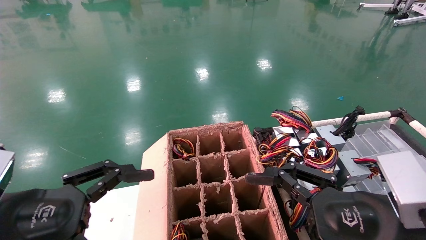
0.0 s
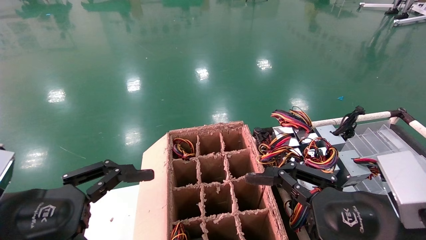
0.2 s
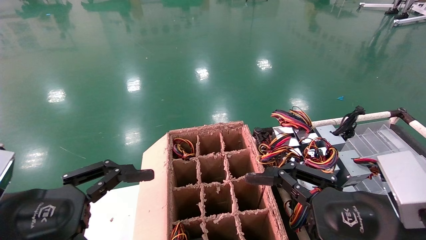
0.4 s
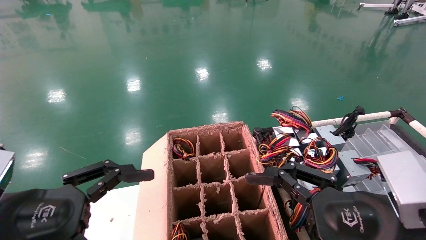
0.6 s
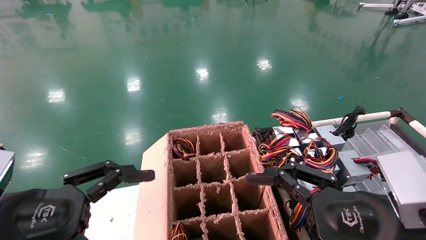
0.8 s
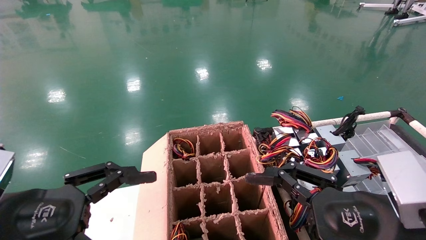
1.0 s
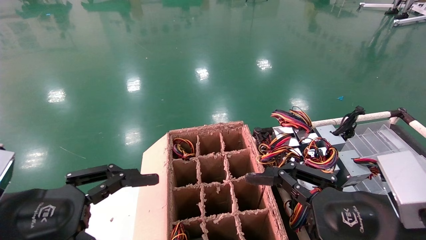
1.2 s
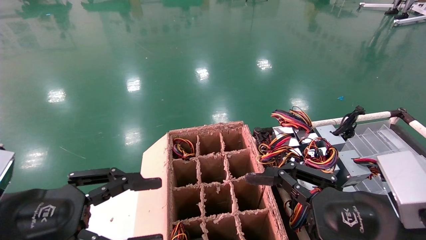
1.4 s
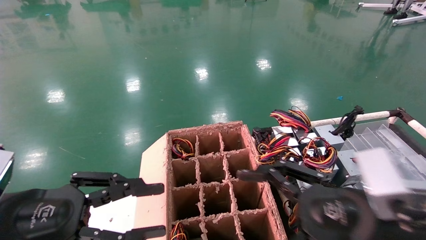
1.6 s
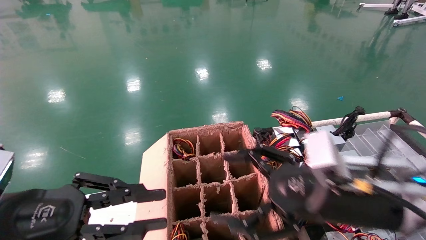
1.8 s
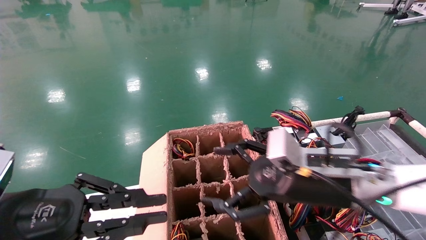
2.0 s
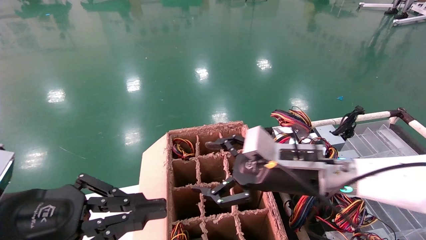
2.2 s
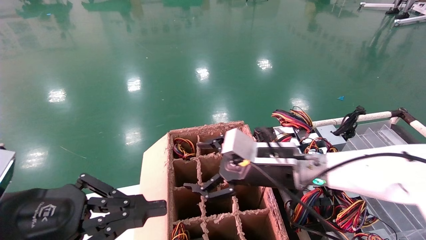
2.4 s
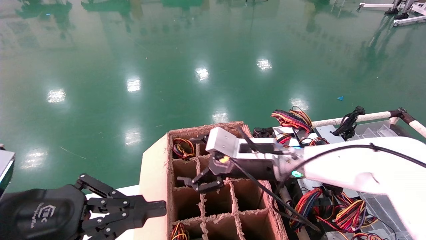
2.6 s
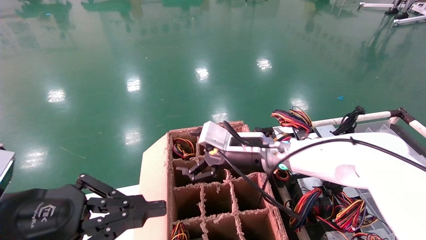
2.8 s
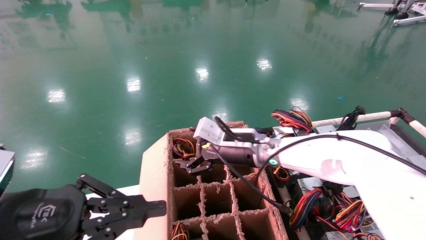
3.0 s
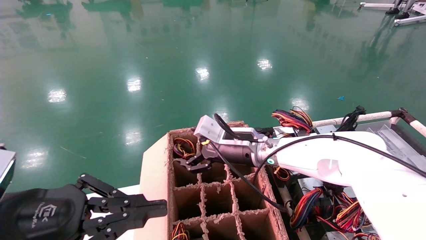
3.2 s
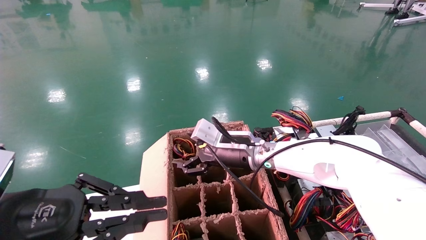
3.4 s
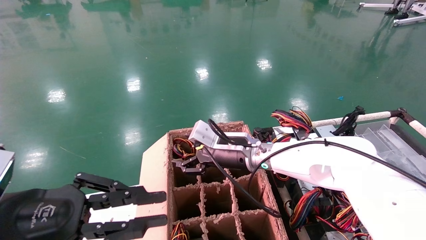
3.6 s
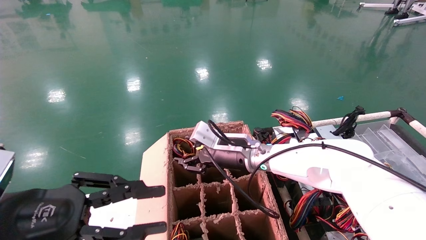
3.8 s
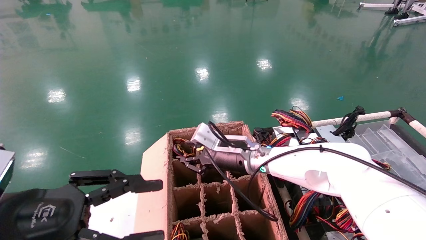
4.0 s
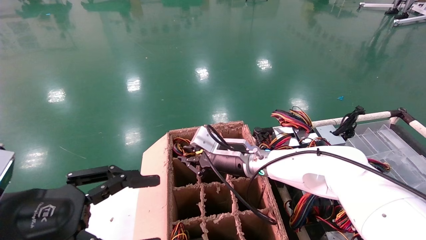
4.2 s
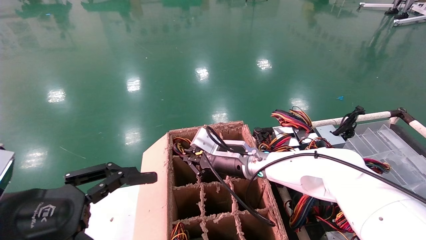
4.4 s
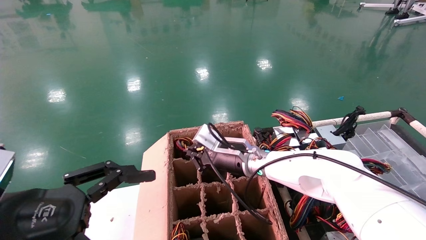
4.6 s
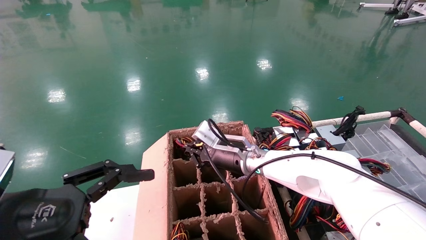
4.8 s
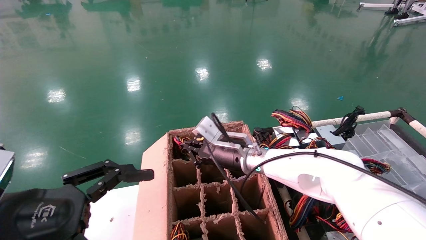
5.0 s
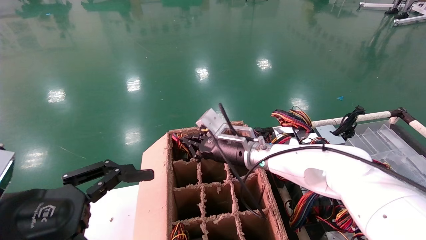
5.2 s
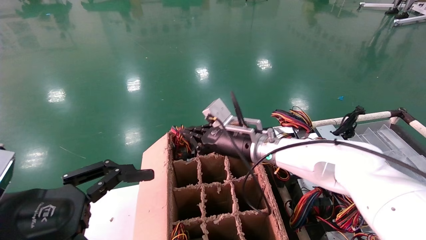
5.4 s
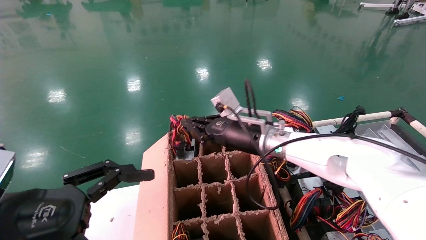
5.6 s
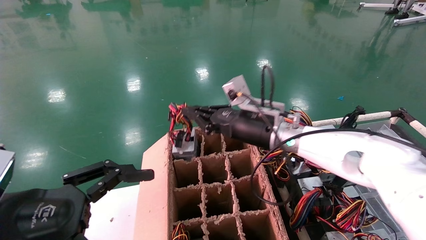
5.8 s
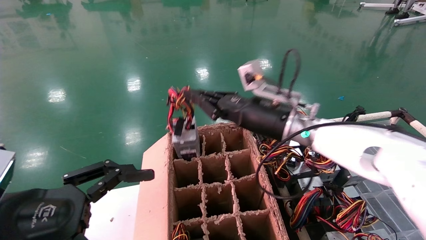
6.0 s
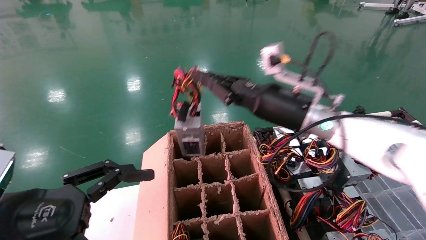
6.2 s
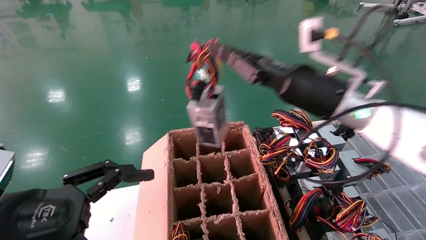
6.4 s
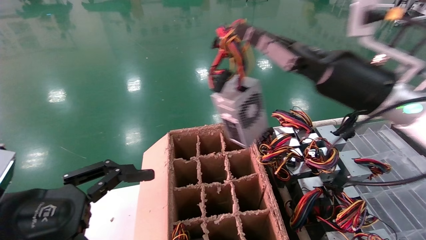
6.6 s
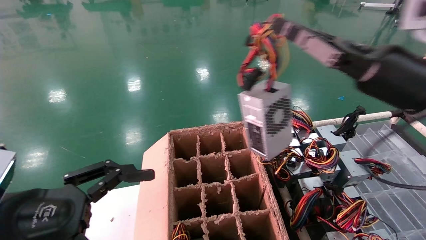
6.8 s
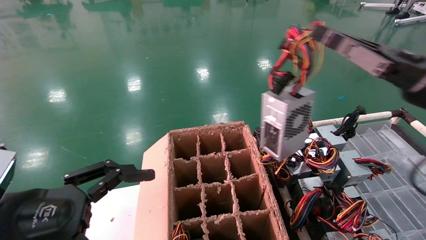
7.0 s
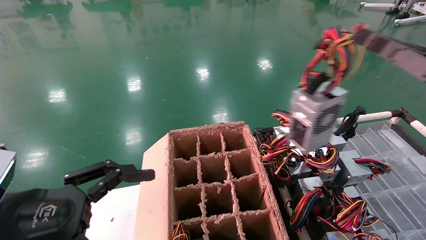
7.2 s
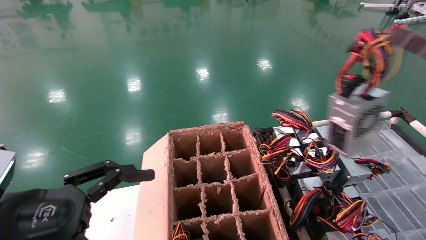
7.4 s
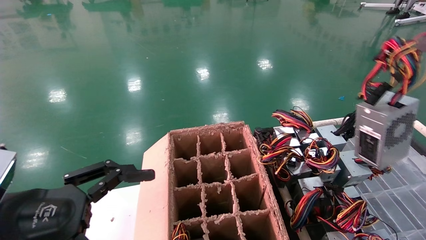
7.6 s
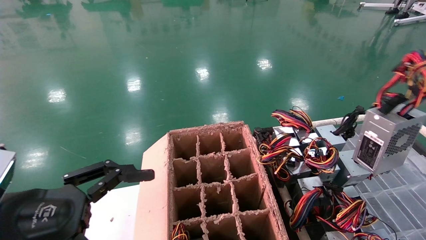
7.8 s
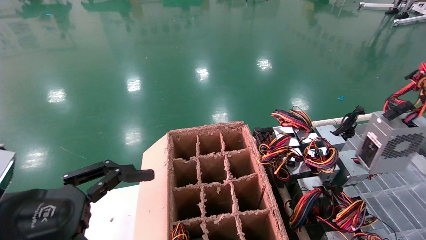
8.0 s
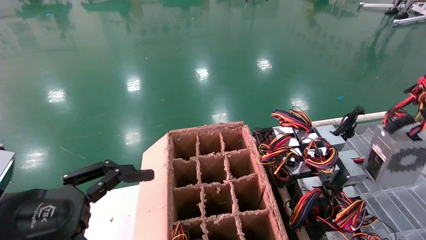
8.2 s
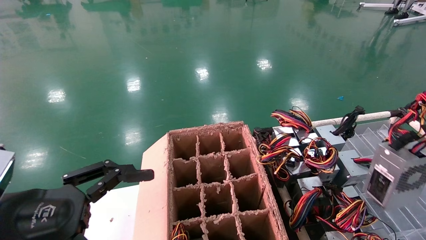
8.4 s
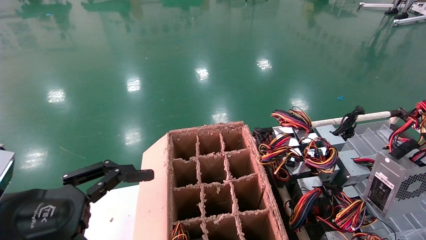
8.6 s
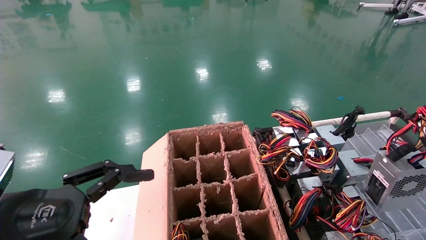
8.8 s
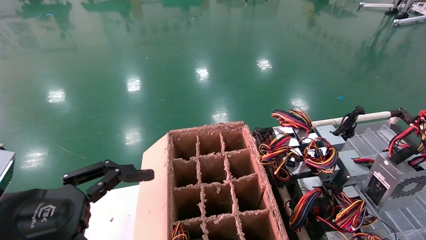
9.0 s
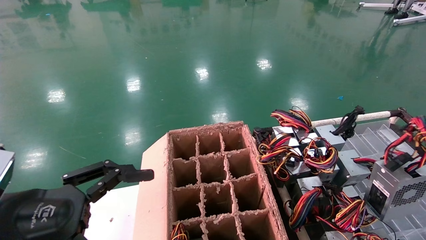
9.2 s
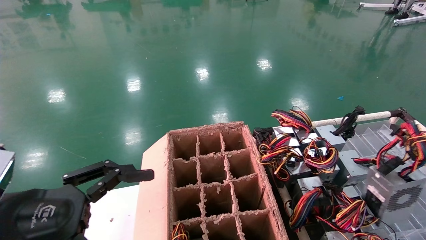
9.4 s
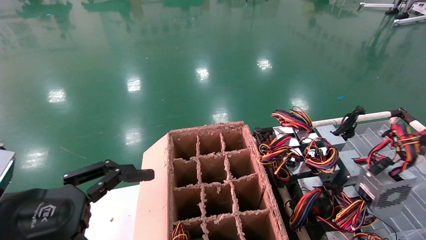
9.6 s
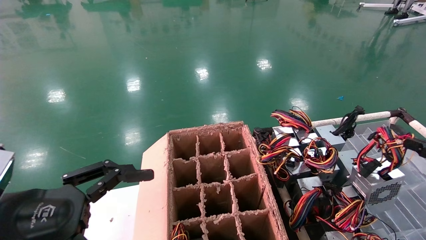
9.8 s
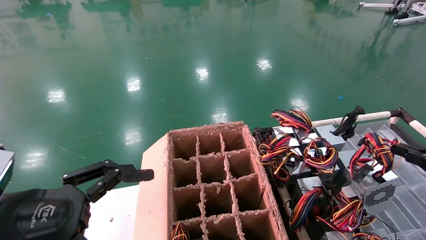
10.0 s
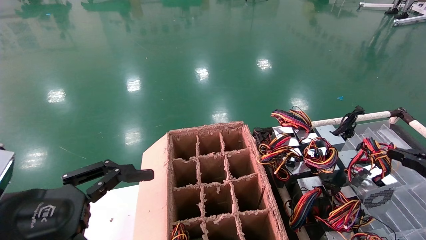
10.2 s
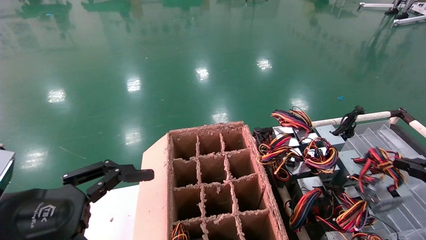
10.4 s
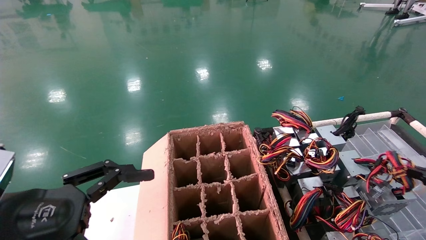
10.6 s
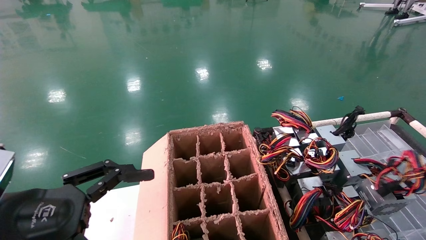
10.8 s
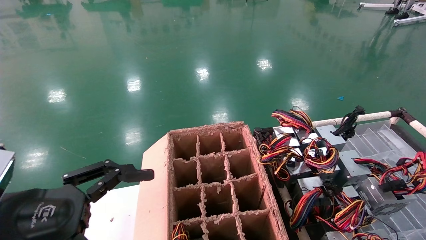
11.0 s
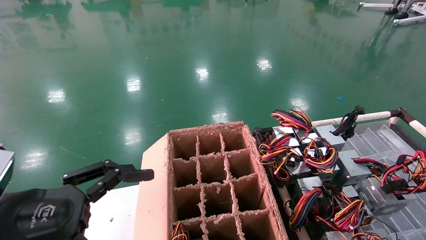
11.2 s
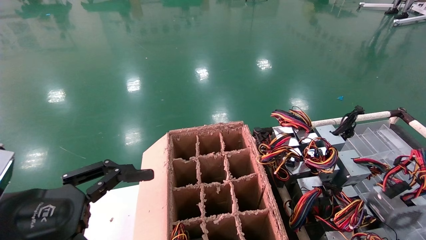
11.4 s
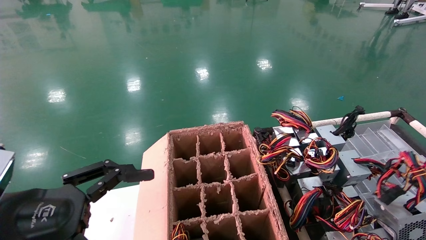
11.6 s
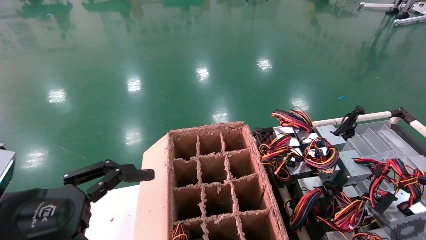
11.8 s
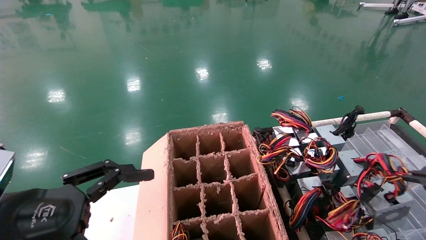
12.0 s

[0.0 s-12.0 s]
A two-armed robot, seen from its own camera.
Step, 1.4 to 4.8 s: Grab and lift the power supply from the large box.
0.0 to 1.6 s: The left gripper closes.
1.6 to 3.0 s: The left gripper closes up. Meanwhile the right gripper heads forward and to the left, covering approximately 25 cm.
3.0 to 4.4 s: The left gripper opens; the right gripper closes its fingers.
4.4 to 6.0 s: The right gripper shifts some 15 cm upward, to the right and backward.
6.0 to 7.6 s: The right gripper travels to the right and backward by approximately 40 cm.
7.6 to 9.0 s: The right gripper goes some 10 cm downward, to the right and backward.
9.0 to 10.4 s: The right gripper changes place by about 5 cm.
10.4 to 12.0 s: The right gripper shifts by some 5 cm.

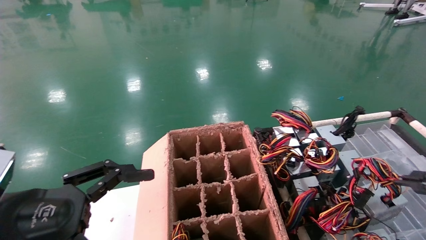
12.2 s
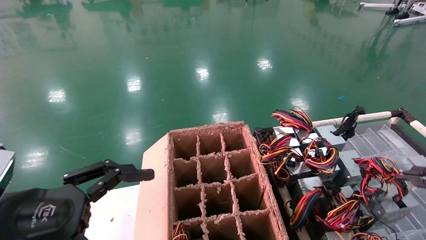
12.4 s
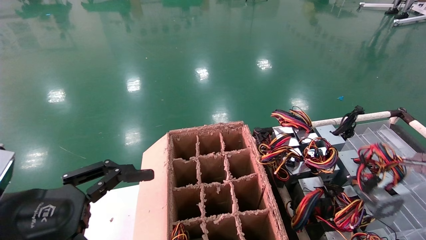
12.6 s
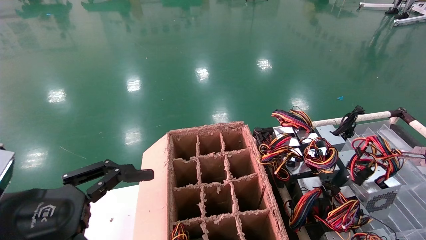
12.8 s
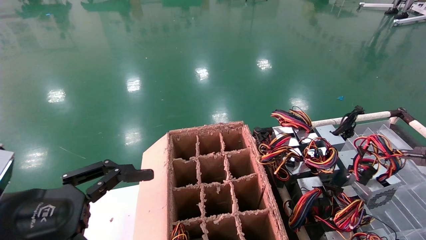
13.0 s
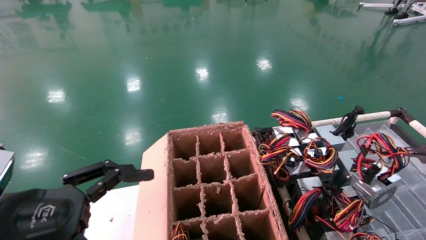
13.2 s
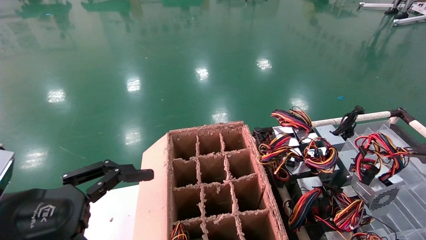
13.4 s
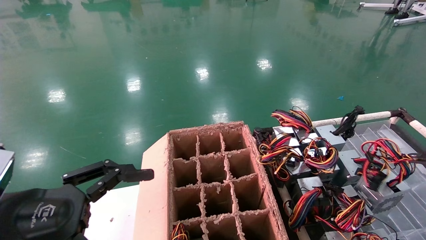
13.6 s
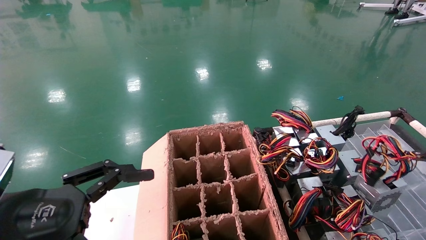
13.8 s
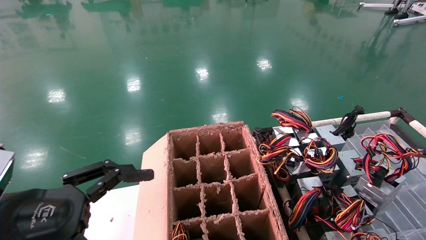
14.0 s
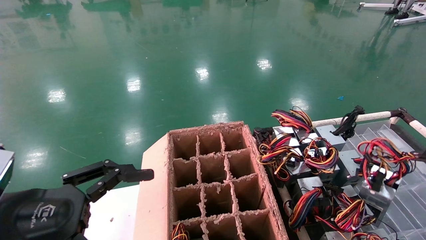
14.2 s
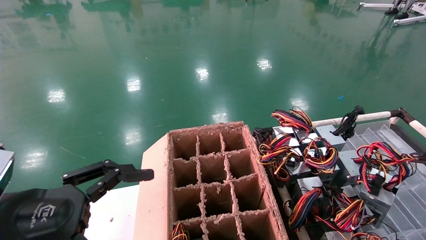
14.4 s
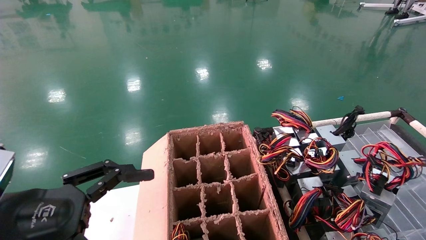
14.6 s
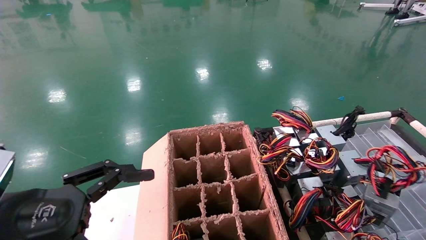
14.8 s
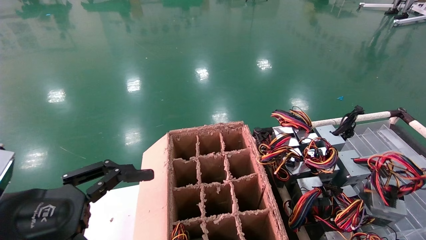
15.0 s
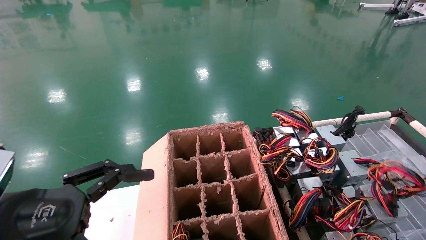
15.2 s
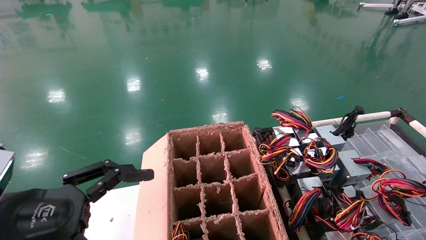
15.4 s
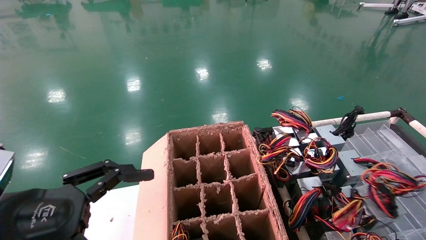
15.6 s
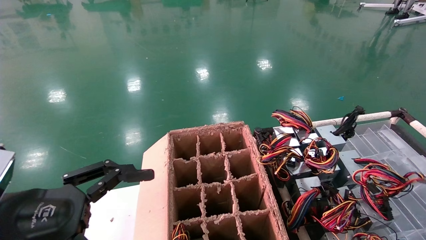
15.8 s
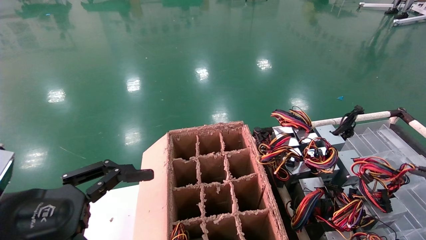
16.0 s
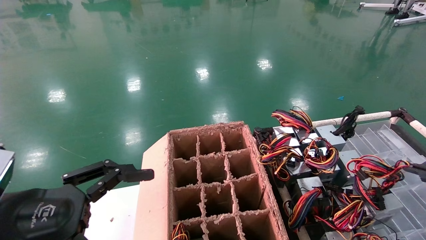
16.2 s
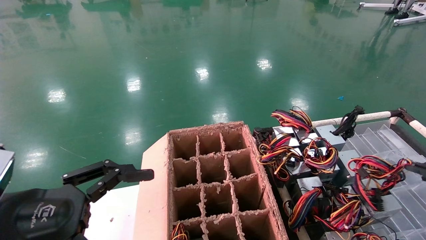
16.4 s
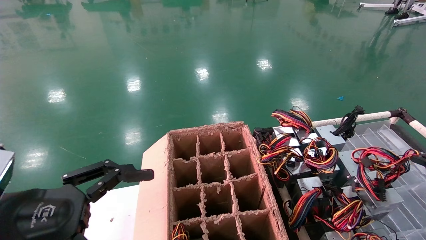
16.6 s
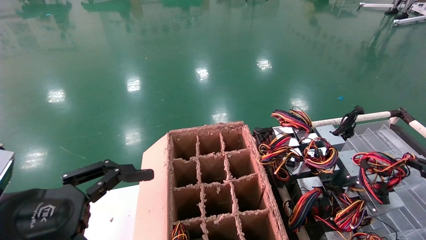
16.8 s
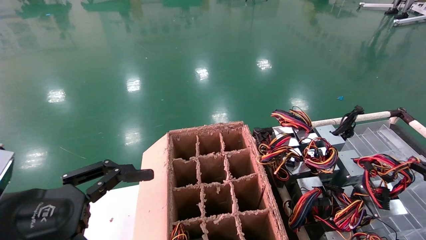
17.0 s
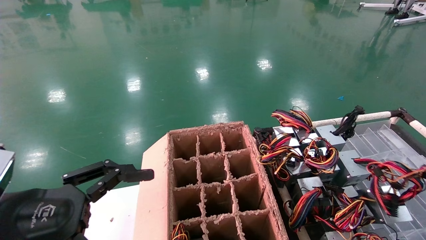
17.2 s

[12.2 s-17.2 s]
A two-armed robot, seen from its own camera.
13.8 to 15.6 s: The right gripper shifts approximately 5 cm downward.
15.6 to 17.2 s: The right gripper heads downward, covering roughly 10 cm.
